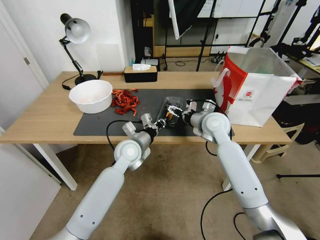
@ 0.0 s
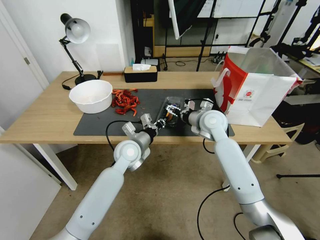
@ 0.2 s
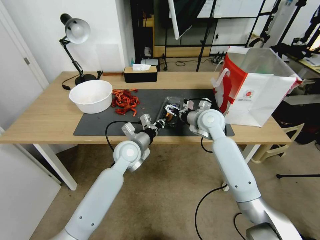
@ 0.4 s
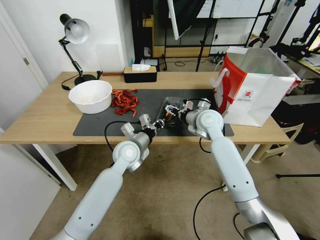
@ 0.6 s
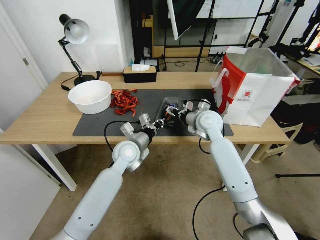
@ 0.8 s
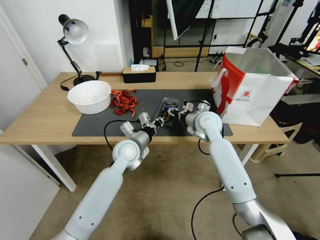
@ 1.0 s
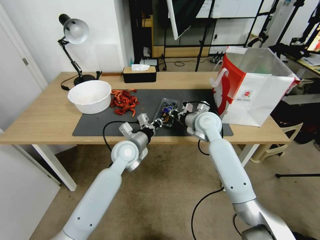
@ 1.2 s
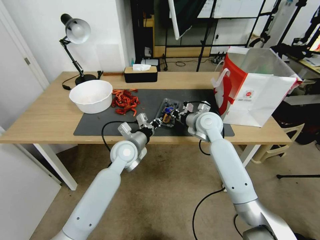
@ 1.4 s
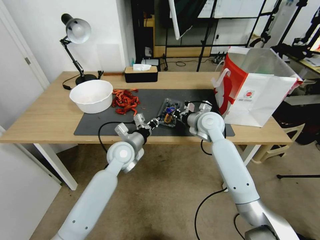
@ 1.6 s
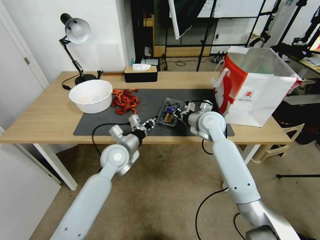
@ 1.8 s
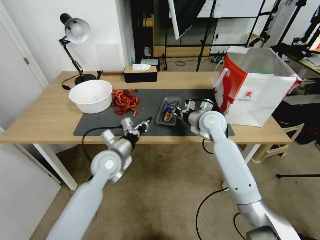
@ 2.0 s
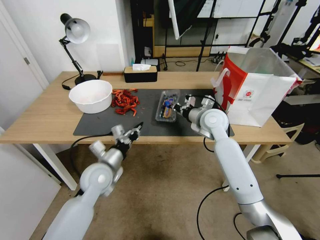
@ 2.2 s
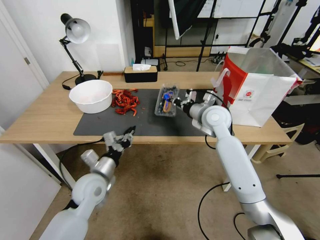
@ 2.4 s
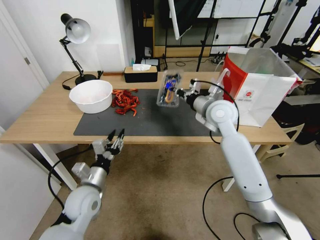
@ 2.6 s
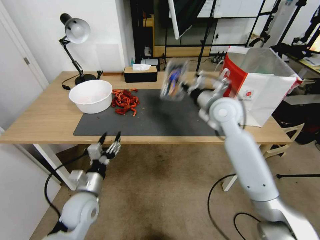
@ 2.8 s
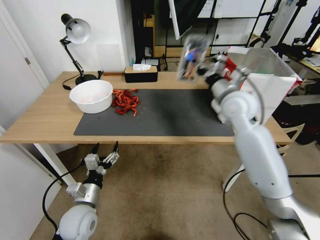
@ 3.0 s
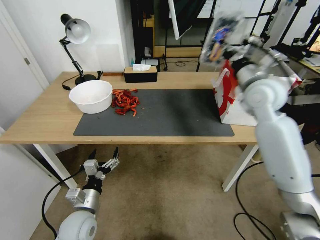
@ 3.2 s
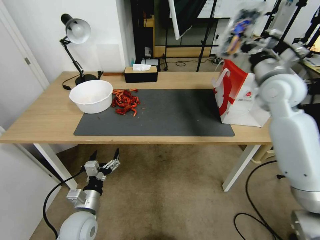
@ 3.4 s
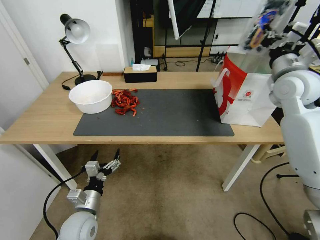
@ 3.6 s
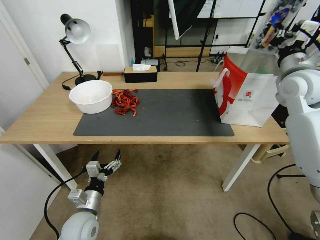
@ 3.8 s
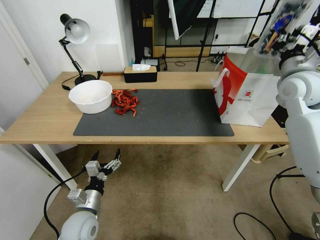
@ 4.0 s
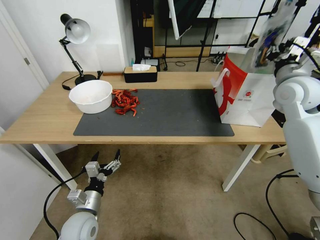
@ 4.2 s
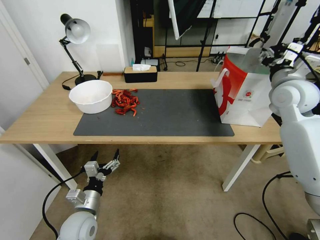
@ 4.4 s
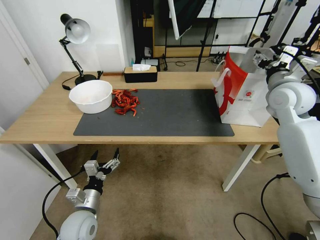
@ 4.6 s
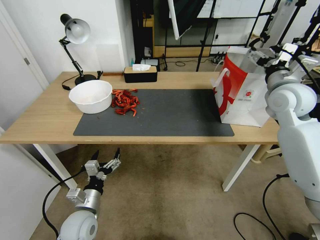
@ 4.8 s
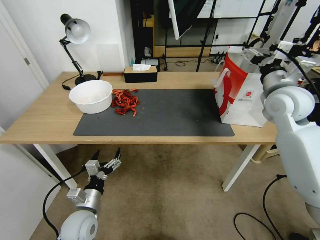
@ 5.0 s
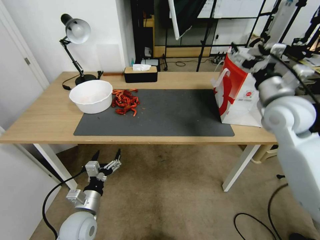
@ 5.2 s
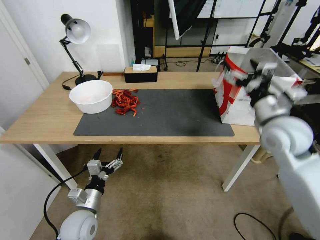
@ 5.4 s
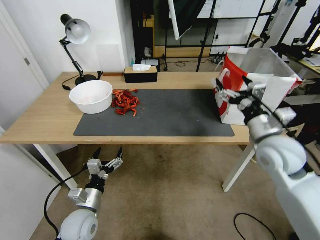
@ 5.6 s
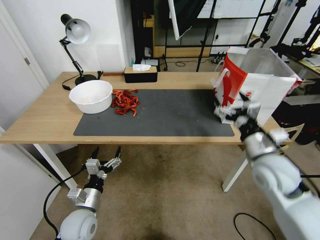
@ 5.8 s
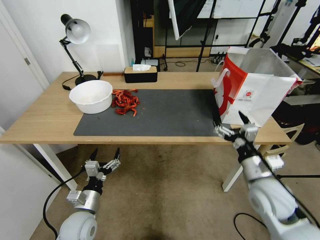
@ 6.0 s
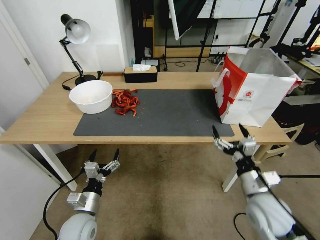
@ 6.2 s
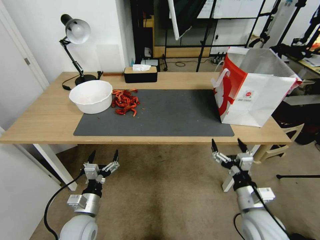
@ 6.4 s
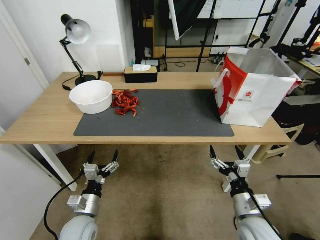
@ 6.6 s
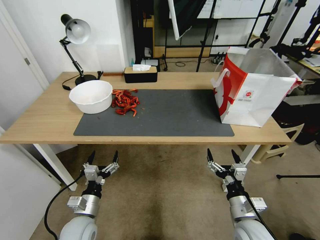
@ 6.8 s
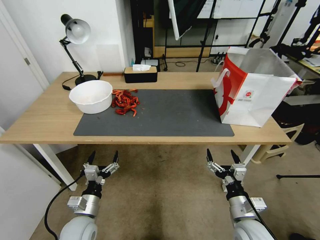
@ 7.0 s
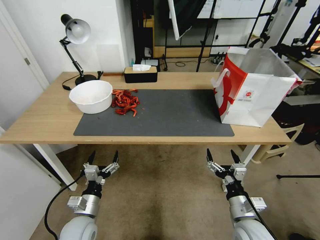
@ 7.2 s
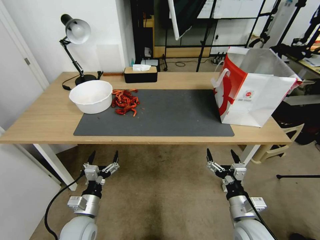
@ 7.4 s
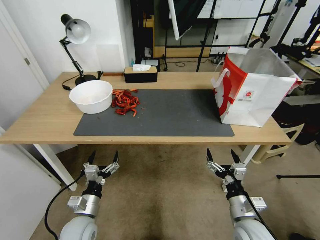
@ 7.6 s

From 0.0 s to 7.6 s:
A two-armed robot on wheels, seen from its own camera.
Task of the whole recording: Close the takeout container lid, then place the container into the takeout bag.
From 0.0 s to 1.6 s: The right gripper closes.
From 1.6 s to 3.0 s: The left gripper moves backward and to the left, approximately 15 cm, and opens. Meanwhile the right gripper travels upward by about 10 cm.
From 3.0 s to 4.6 s: The left gripper is displaced backward and downward by some 10 cm; the right gripper is displaced to the right and upward by some 20 cm, and opens its fingers.
From 4.6 s to 6.0 s: The right gripper travels backward and downward by roughly 25 cm.
From 6.0 s to 7.6 s: The right gripper moves downward and backward, some 15 cm.
